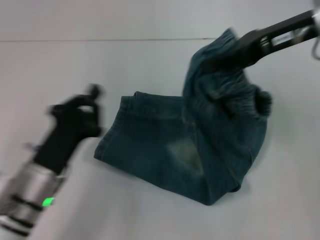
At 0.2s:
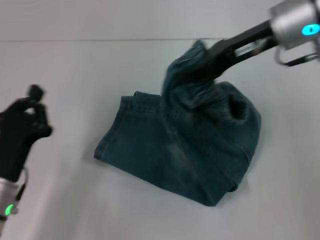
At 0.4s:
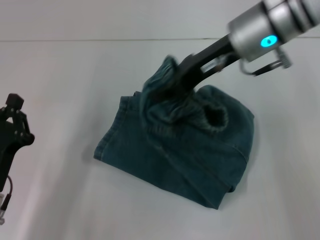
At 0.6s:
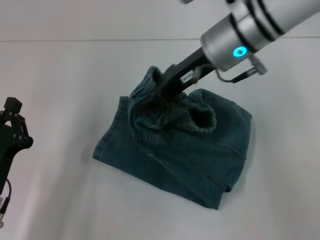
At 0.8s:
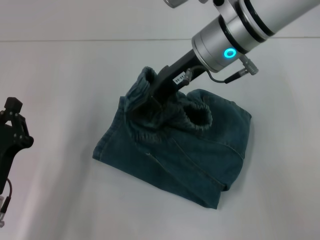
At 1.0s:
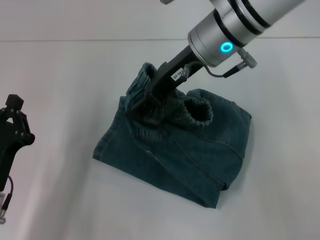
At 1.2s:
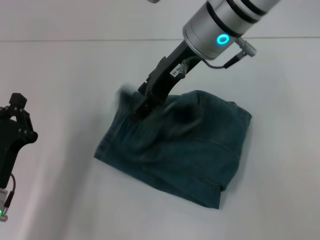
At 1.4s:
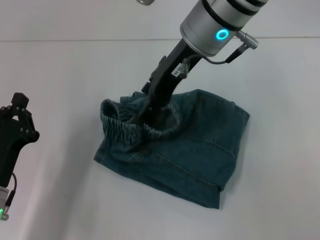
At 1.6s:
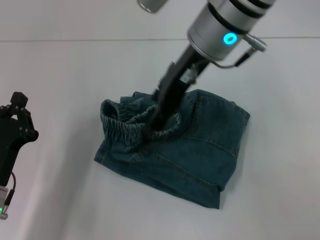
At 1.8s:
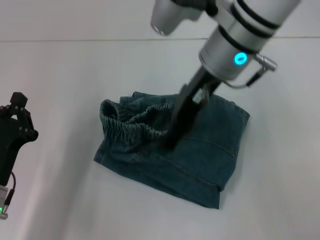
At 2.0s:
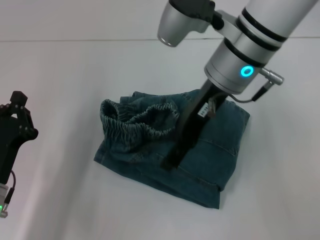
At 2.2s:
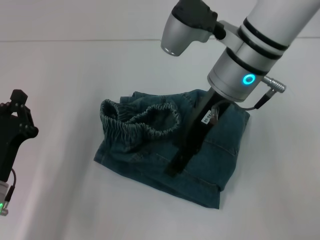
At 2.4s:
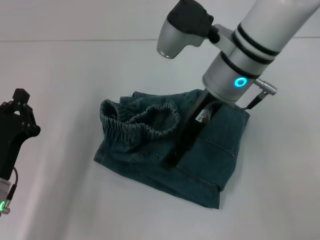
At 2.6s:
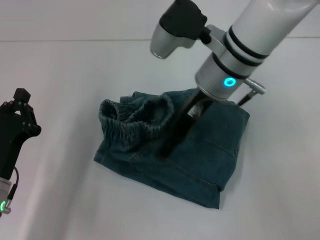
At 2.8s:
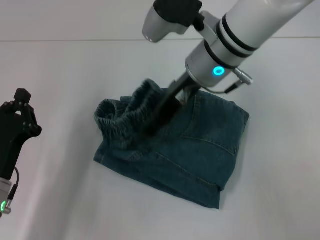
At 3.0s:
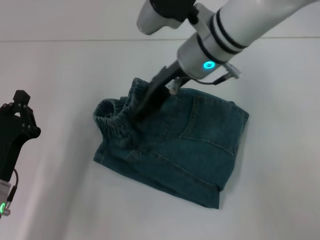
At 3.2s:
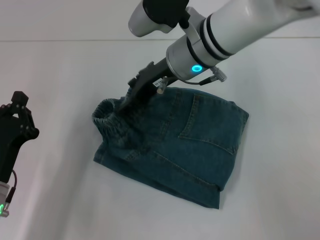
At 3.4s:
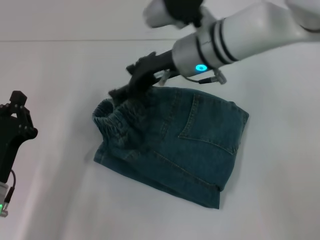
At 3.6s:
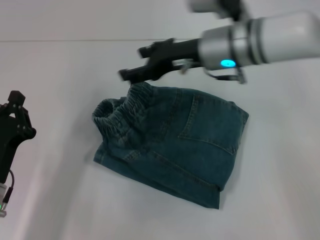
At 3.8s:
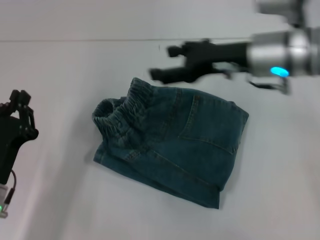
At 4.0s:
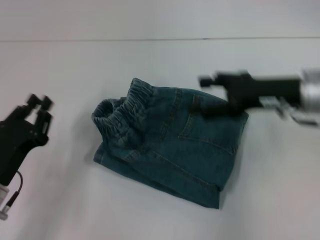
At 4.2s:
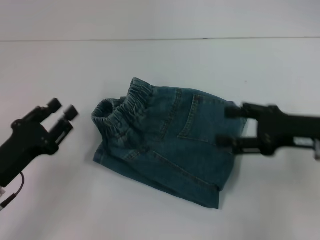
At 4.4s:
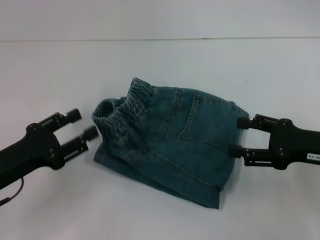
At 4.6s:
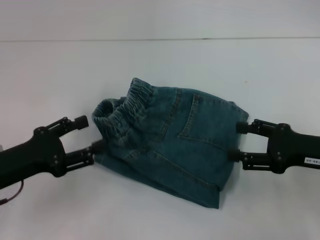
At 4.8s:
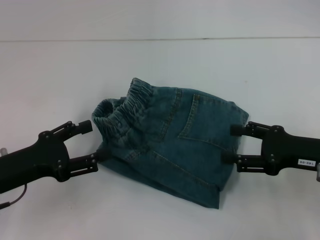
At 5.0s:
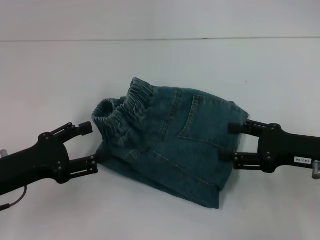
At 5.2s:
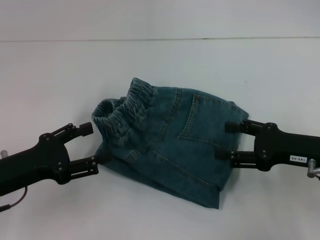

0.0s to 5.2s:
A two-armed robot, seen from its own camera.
Step, 0.0s to 3.2s: Fold to the left with your right hand.
0.0s to 1.8s: The right gripper travels to the left by about 15 cm, and opens. The left gripper heads to the left, covering roughly 5 cm.
1.8s to 3.4s: The right gripper travels downward by about 5 cm.
3.4s to 5.2s: The right gripper shifts roughly 25 cm to the right and backward. Meanwhile the left gripper shifts roughly 5 cm upward, and opens up.
